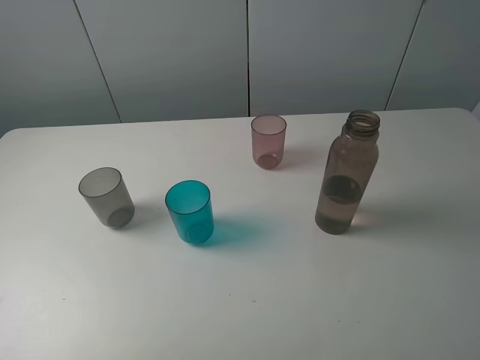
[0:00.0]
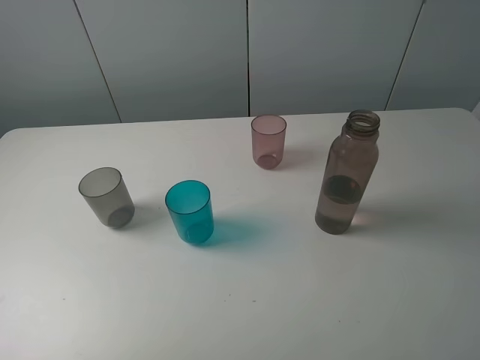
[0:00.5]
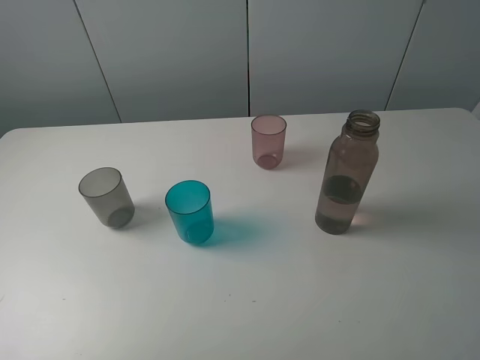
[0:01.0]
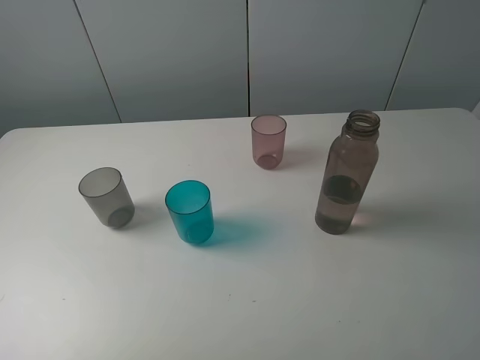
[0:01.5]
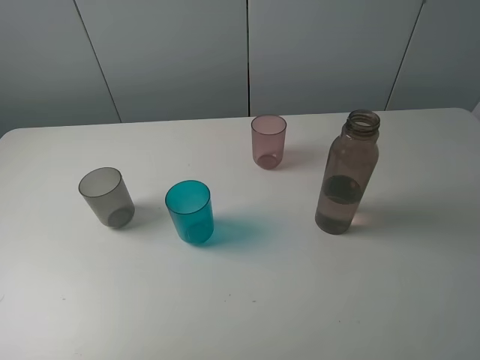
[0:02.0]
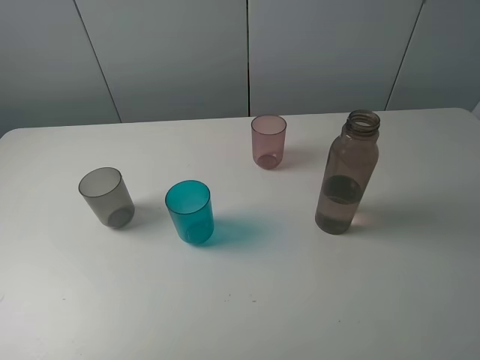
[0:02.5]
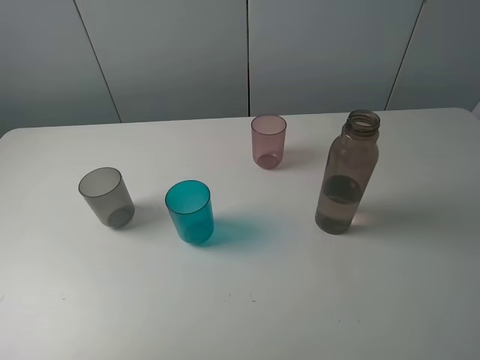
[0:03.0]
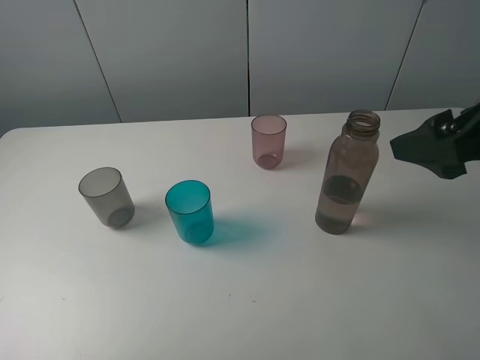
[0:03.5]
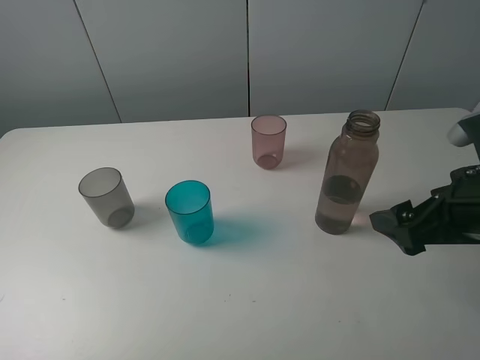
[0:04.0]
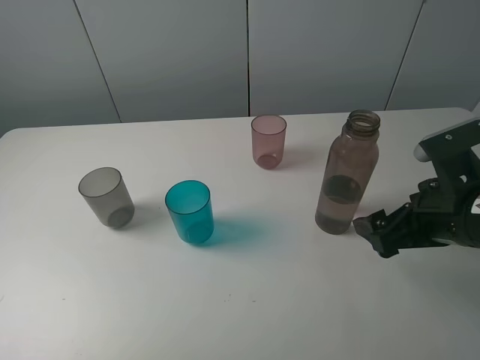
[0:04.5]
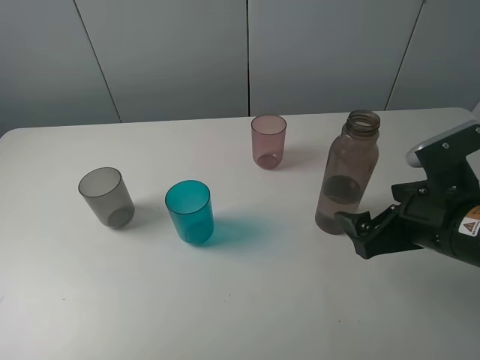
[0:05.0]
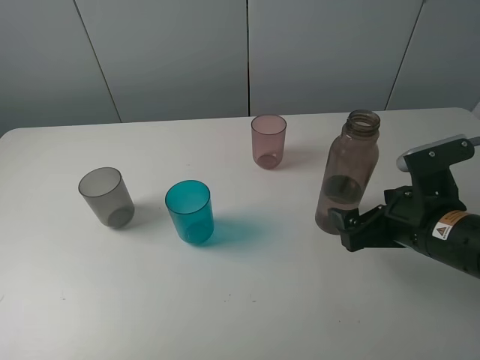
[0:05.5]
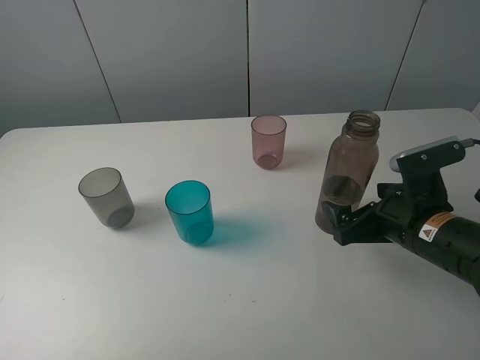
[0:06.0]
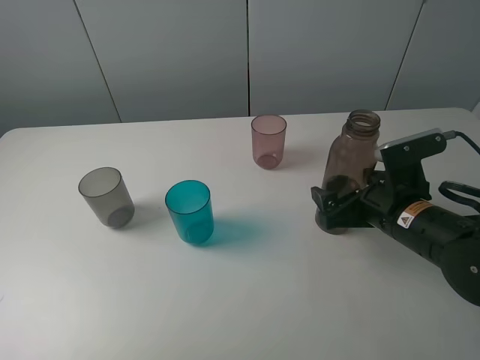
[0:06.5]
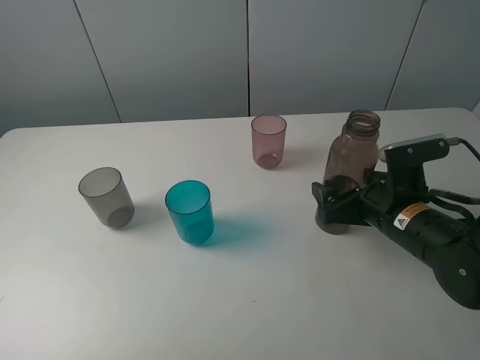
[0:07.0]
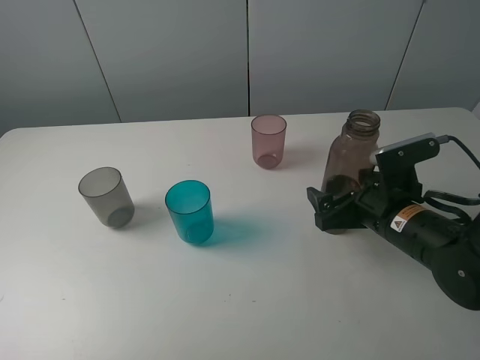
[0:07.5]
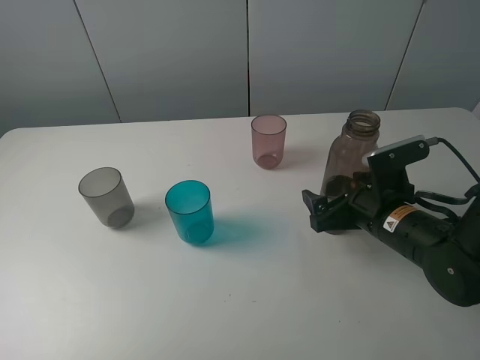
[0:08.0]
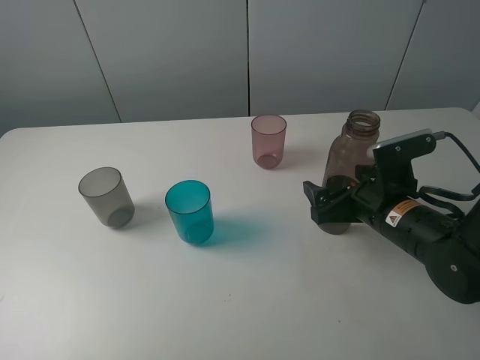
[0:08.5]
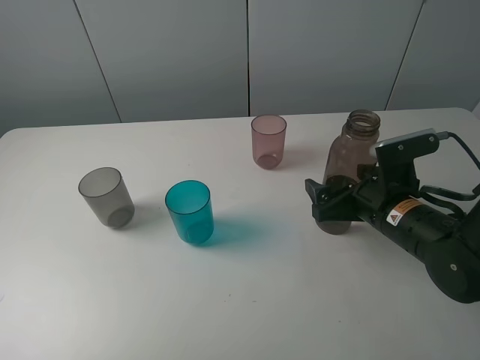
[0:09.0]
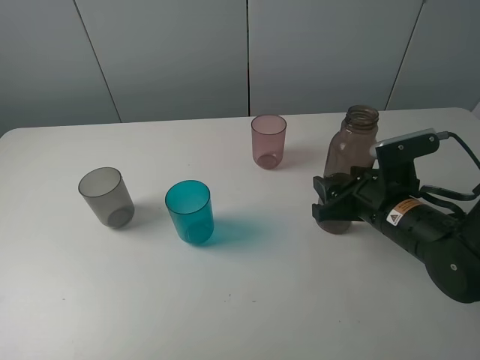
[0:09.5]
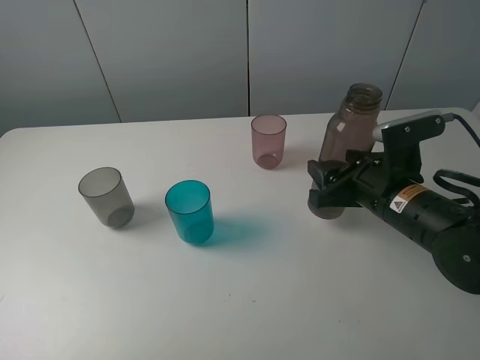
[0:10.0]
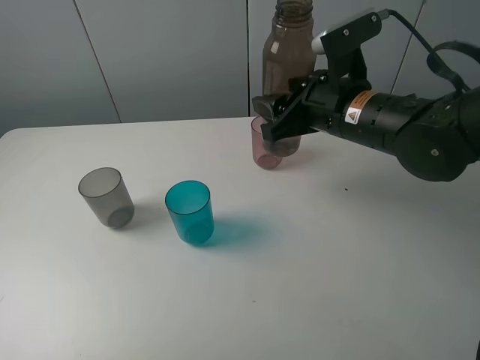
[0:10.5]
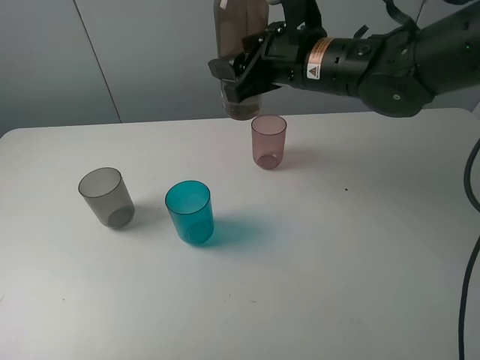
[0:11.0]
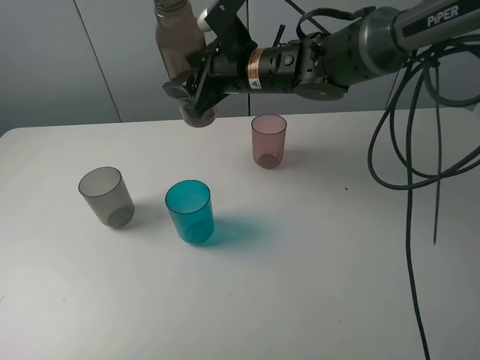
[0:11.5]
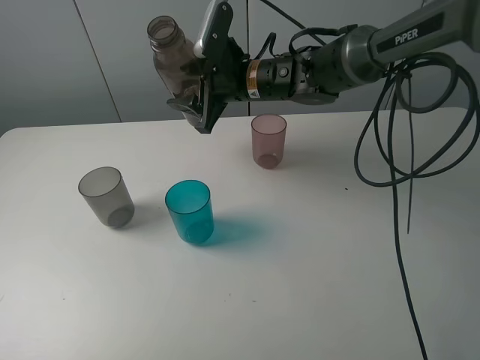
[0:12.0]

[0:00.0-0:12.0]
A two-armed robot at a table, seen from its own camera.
Task of the whole recording: pick up the bottle filled with water and pour water into the middle cup of the three cups.
Step, 0:00.0 to 0:09.5: Grasp the brown bottle with the right gripper.
0:00.0 to 0:02.0: Neither gripper changes place.
0:02.0 to 0:04.0: The right gripper moves forward and downward, roughly 20 cm.
0:04.0 to 0:06.0: The right gripper moves downward, about 10 cm.
0:06.0 to 0:08.0: The grippers move only a little.
0:08.0 to 0:10.0: The right gripper closes.
0:10.0 to 0:12.0: The right gripper moves forward and to the left, about 25 cm.

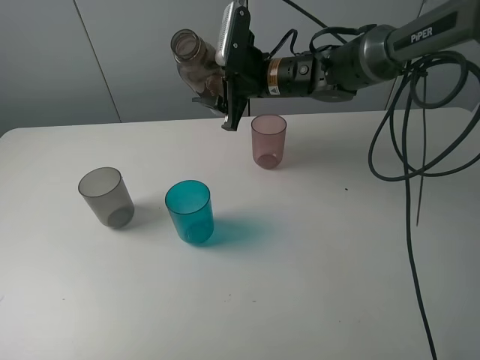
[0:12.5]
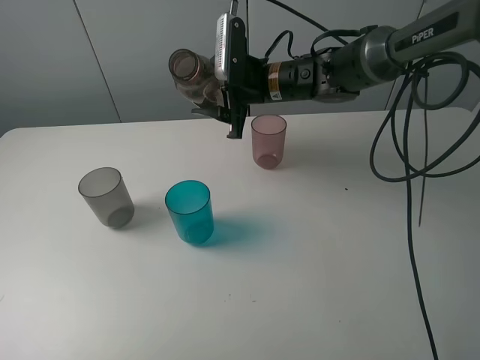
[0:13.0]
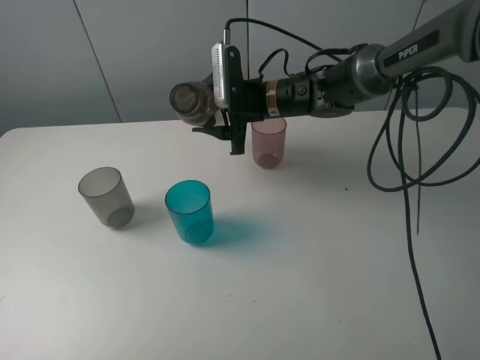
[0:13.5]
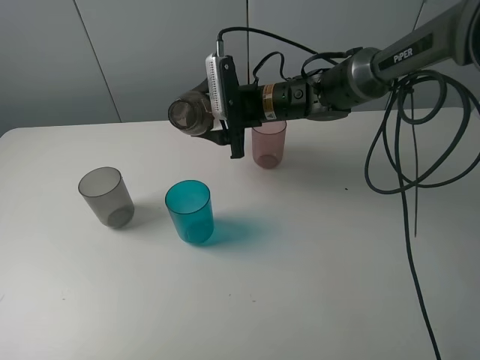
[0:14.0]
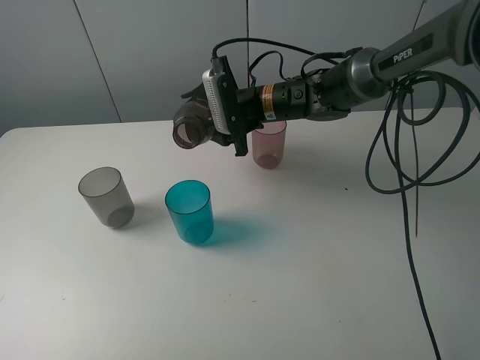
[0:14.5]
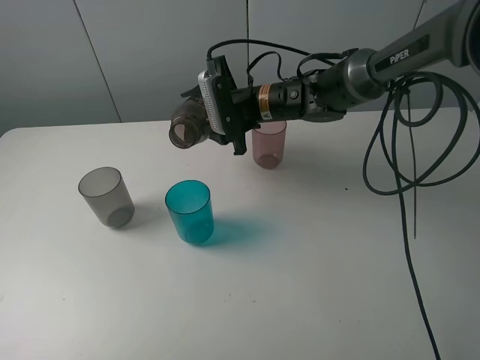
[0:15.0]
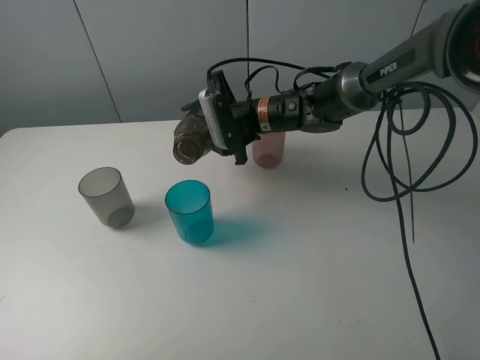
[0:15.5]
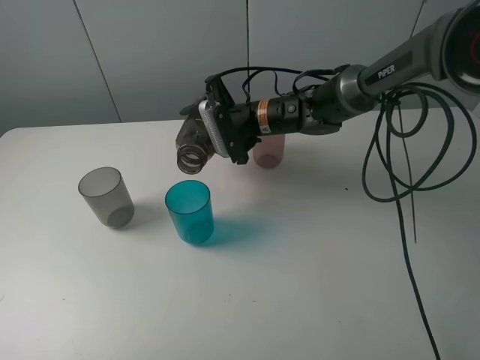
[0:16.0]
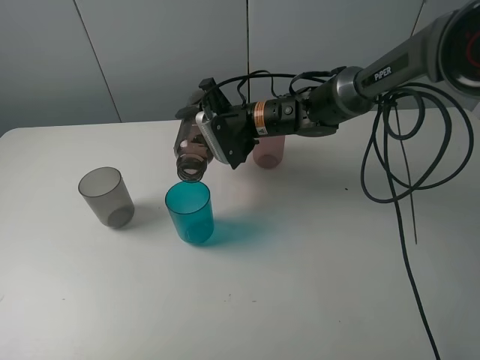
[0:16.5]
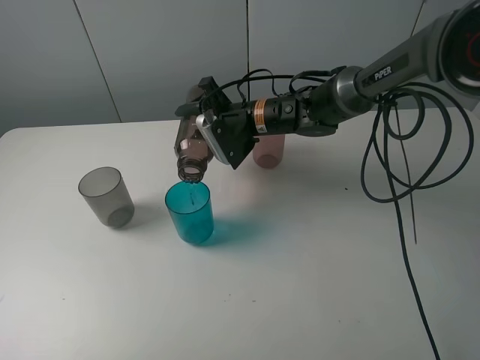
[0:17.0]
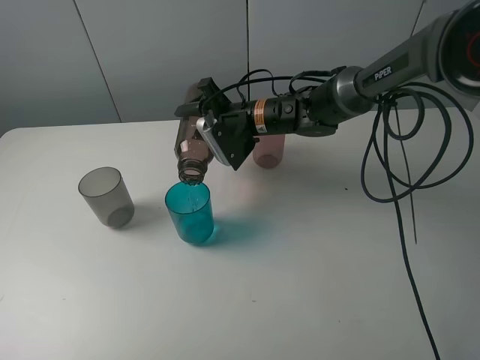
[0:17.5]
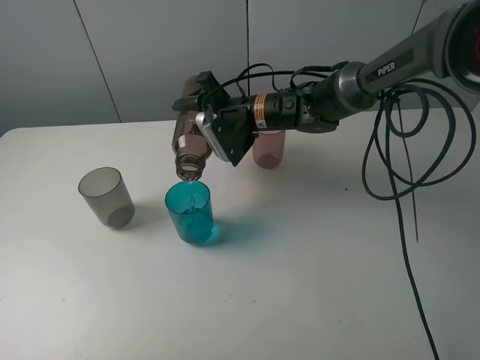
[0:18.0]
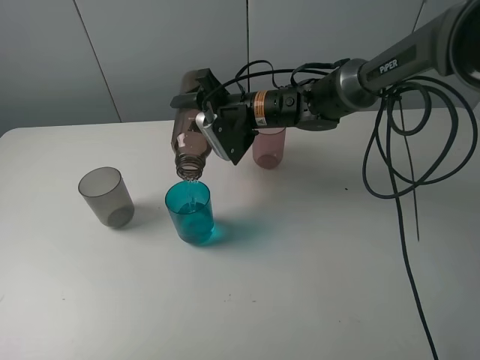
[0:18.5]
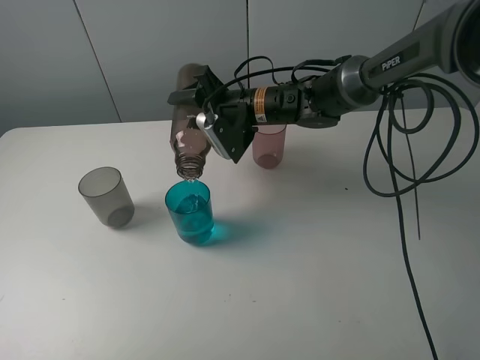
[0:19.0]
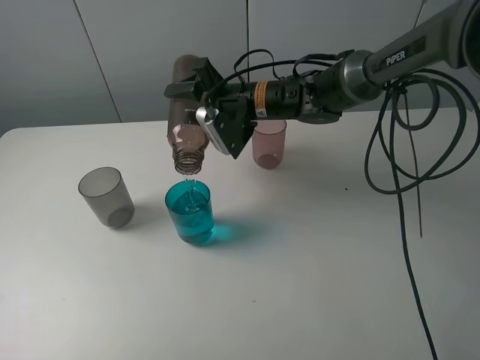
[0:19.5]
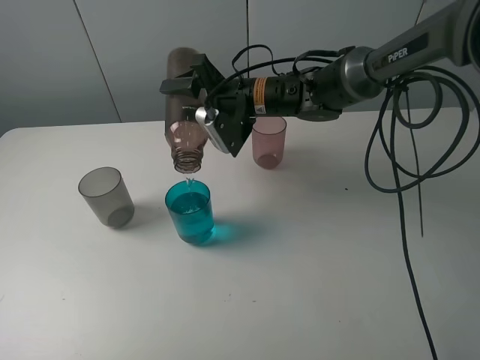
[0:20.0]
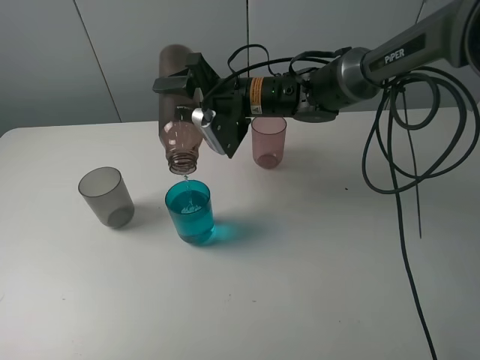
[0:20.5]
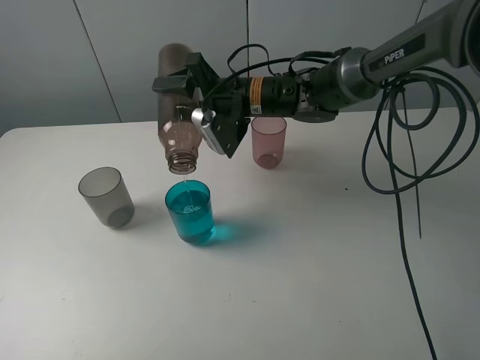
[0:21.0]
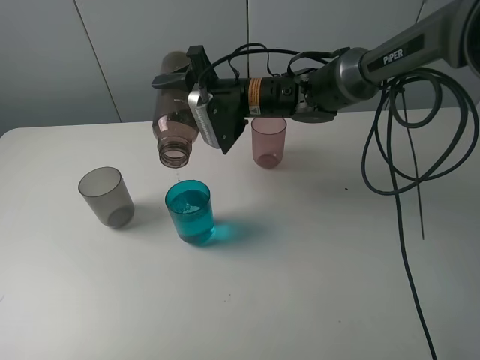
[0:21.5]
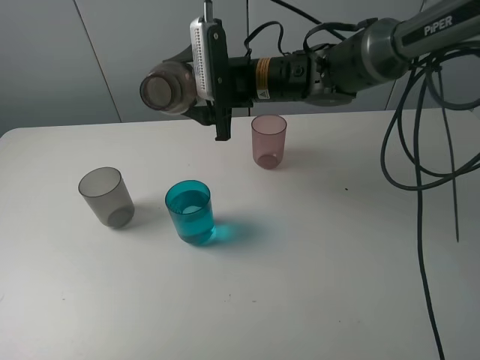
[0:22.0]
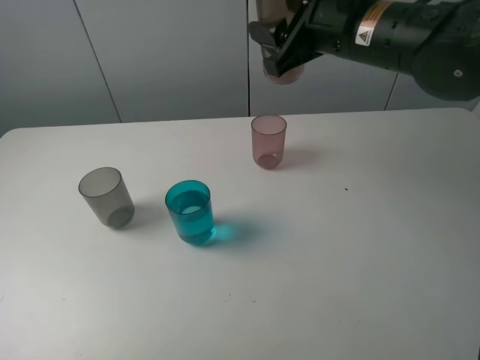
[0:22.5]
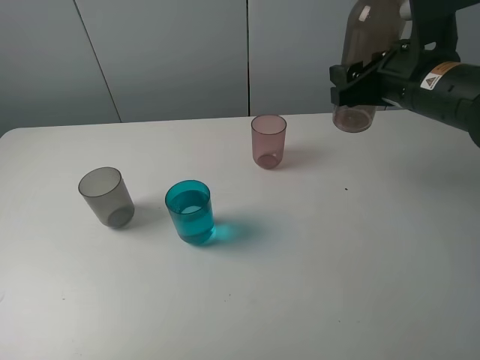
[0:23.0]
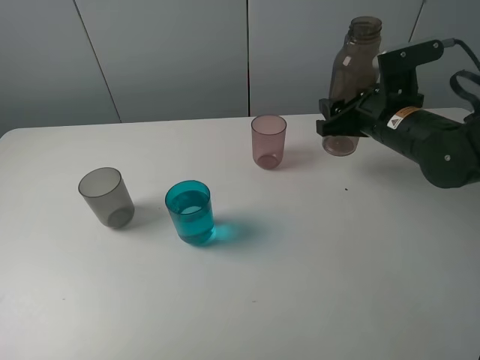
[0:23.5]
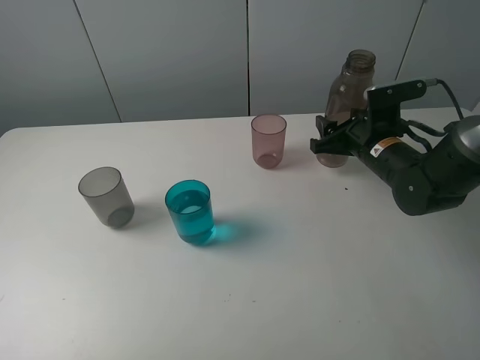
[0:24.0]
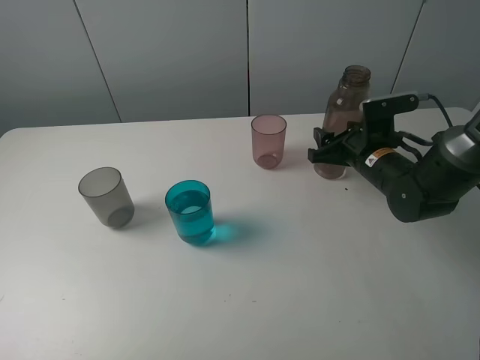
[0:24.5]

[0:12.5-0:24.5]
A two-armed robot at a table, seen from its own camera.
Task of the whole recording: pick up the bottle filled with water and pour water into the middle cup of the three cups.
Step, 0:12.5 to 0:16.0: Pour water from transparent bottle to blue cup with the right gripper.
0:14.5 to 0:16.5: The grippers move only a little.
0:16.5 to 0:18.5: The grippers move only a little.
0:18.5 to 0:20.5: There are only small adjustments of the grippers.
0:20.5 to 0:22.5: The right gripper heads to the right, upward and backward, covering approximately 20 cm.
0:22.5 to 0:24.5: The right gripper heads downward, covering some 20 cm.

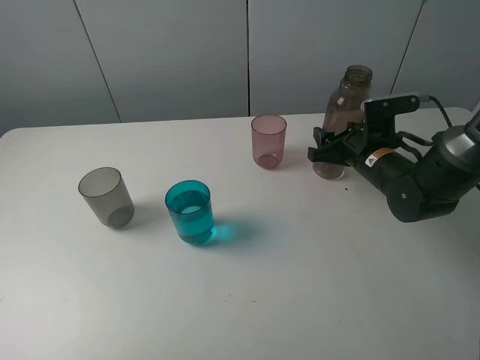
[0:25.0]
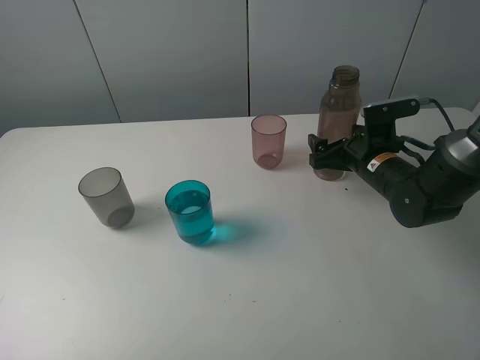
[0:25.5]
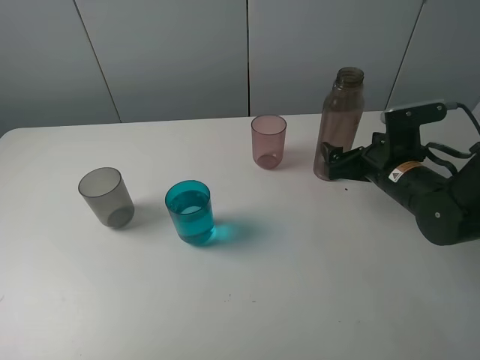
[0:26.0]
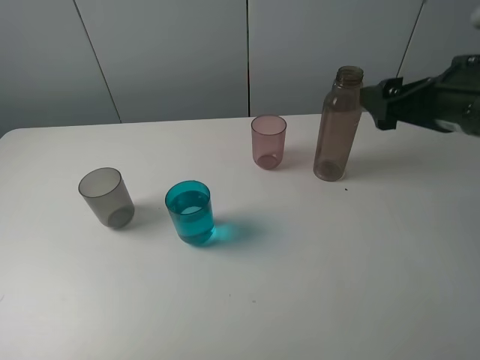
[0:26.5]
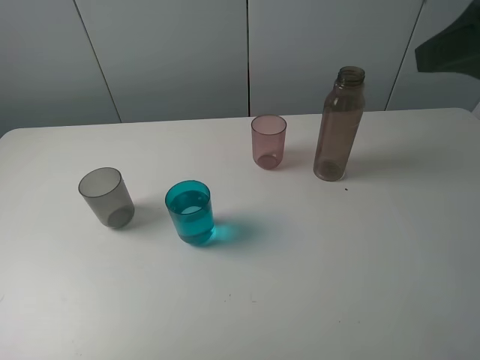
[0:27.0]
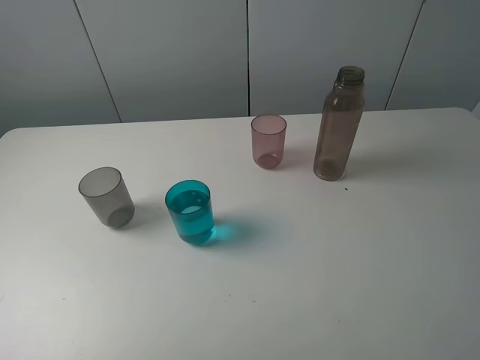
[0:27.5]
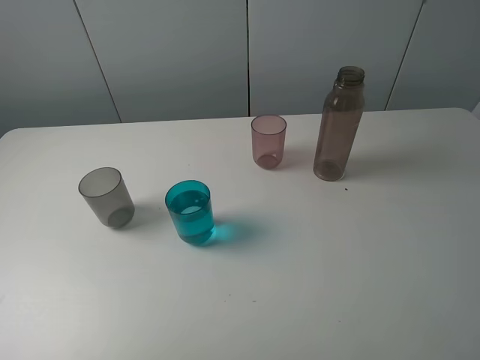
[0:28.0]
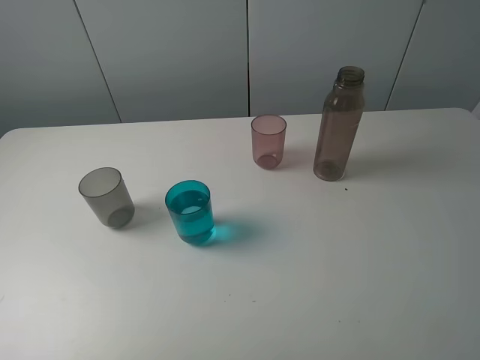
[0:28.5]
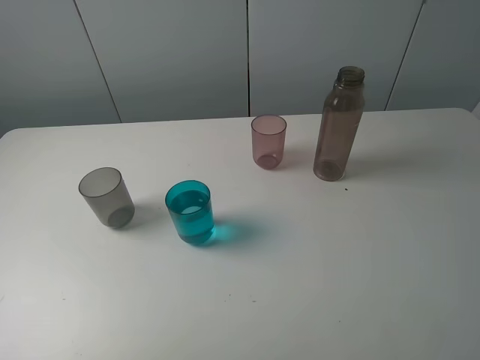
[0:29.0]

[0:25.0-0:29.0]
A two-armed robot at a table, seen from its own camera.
Task of the whole recording: pick up the bottle filled with water and pour water into the middle cup of the three cups.
0:25.0 to 0:27.0: The right gripper heads upward and backward, covering about 35 cm, and opens up.
0:27.0 to 0:29.0: The right gripper travels backward and downward by approximately 15 cm.
